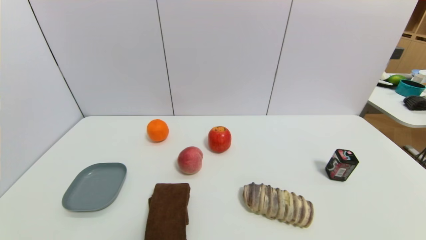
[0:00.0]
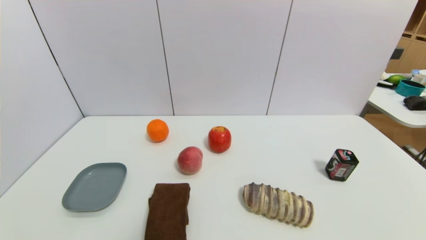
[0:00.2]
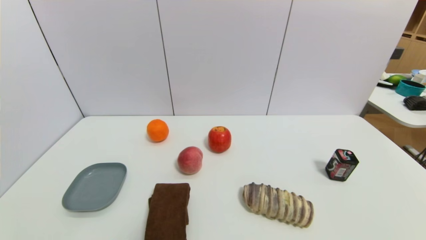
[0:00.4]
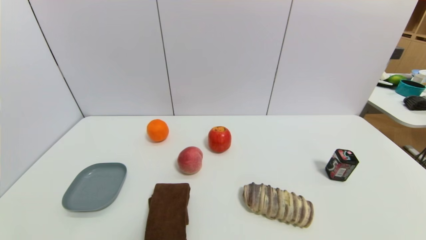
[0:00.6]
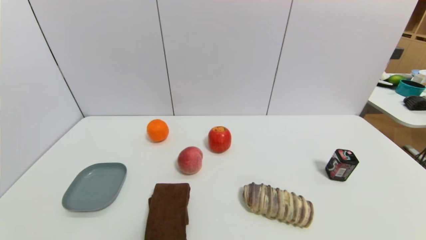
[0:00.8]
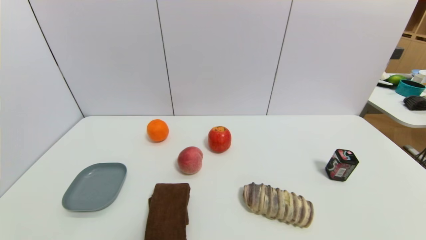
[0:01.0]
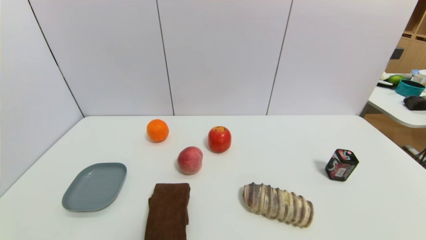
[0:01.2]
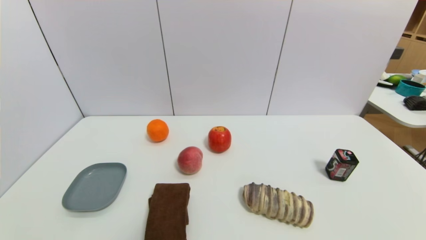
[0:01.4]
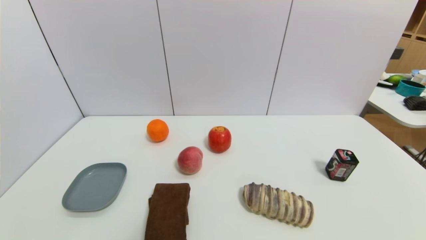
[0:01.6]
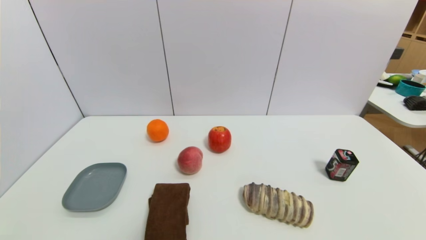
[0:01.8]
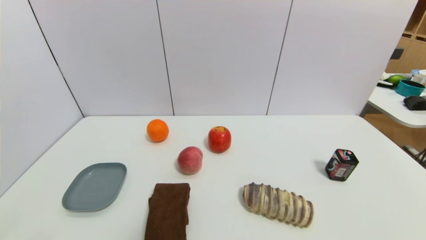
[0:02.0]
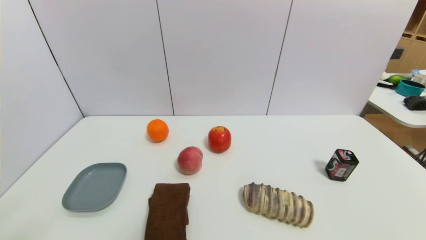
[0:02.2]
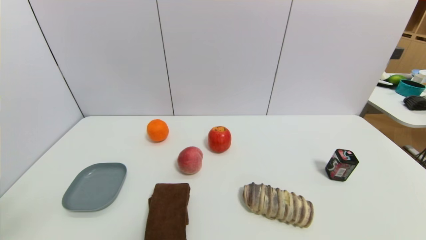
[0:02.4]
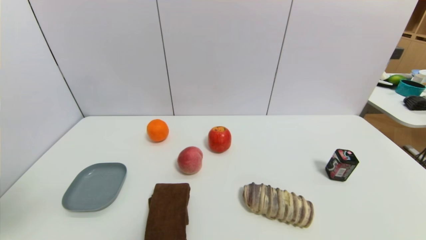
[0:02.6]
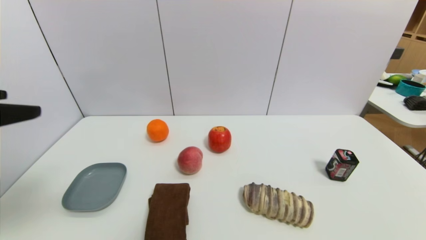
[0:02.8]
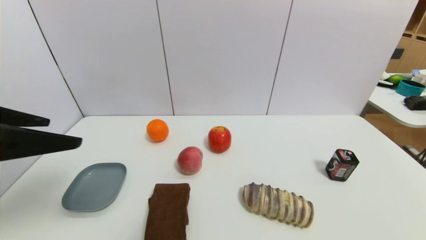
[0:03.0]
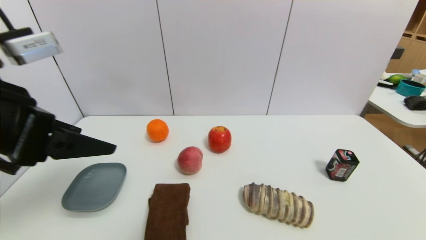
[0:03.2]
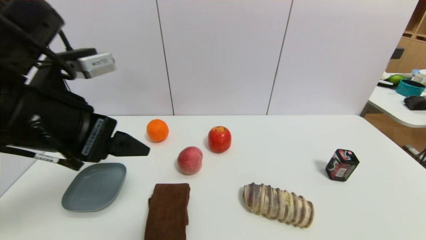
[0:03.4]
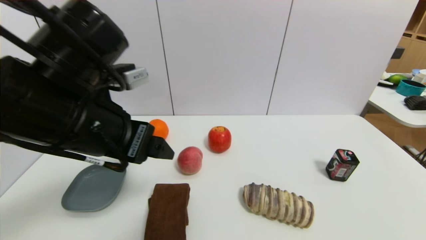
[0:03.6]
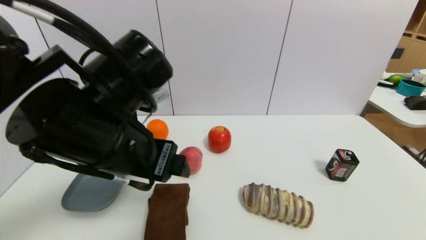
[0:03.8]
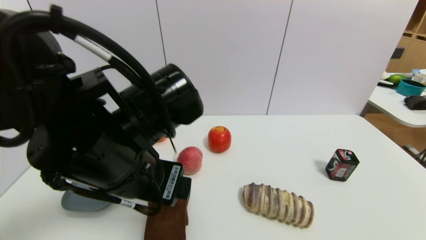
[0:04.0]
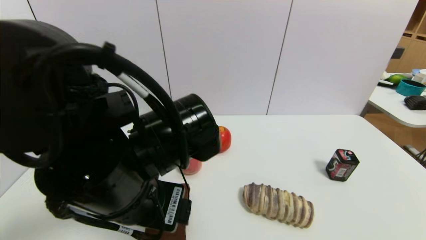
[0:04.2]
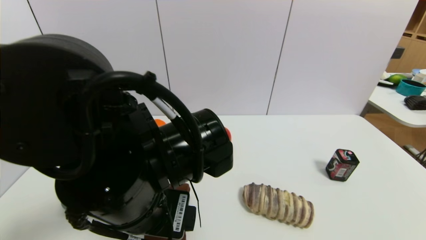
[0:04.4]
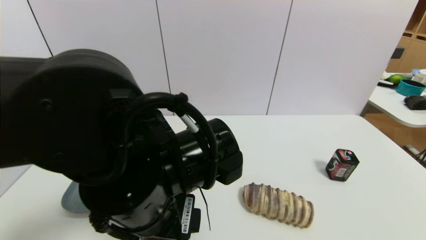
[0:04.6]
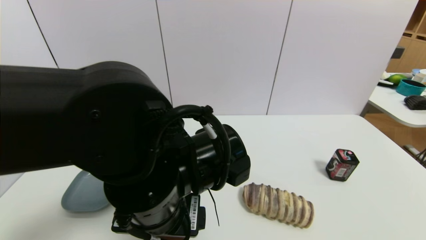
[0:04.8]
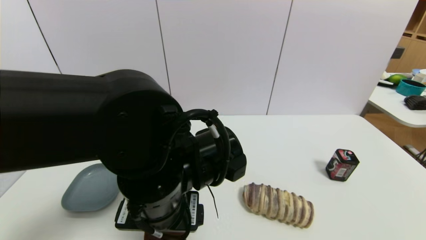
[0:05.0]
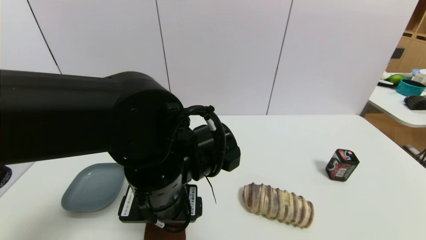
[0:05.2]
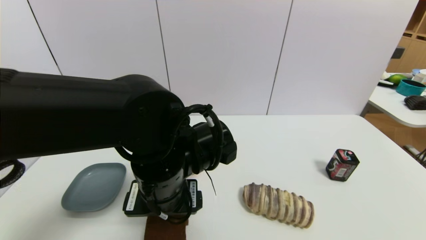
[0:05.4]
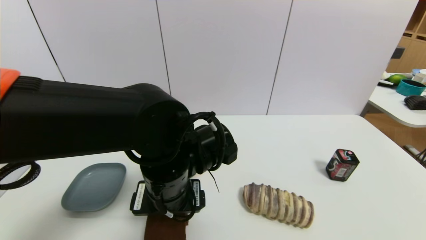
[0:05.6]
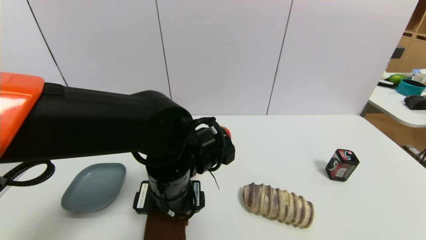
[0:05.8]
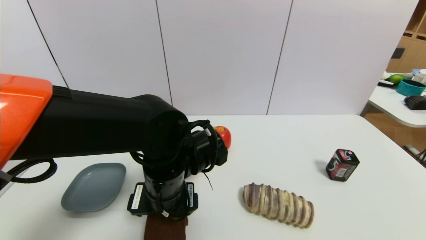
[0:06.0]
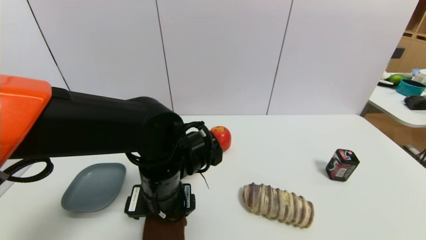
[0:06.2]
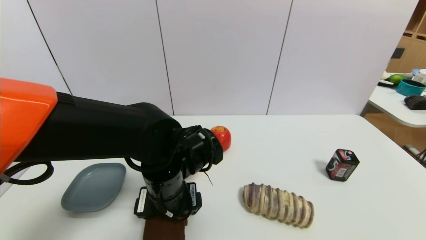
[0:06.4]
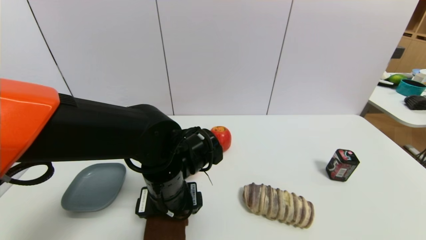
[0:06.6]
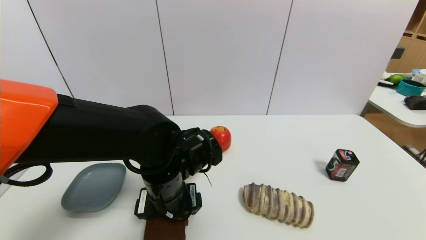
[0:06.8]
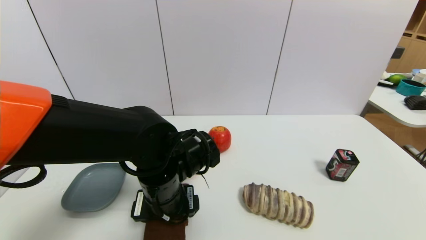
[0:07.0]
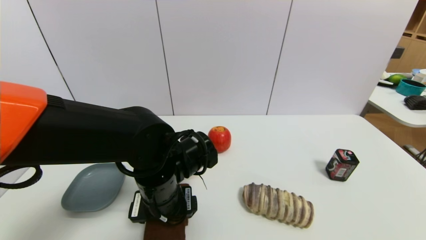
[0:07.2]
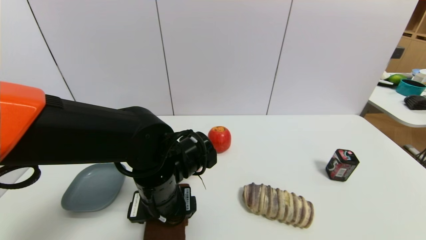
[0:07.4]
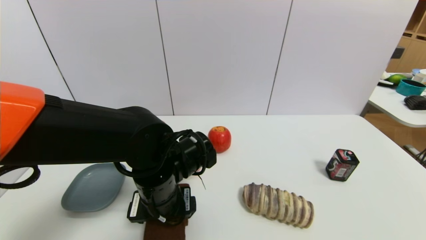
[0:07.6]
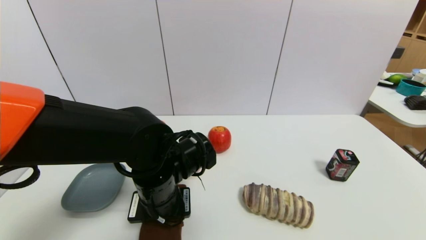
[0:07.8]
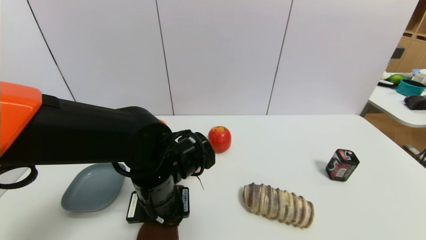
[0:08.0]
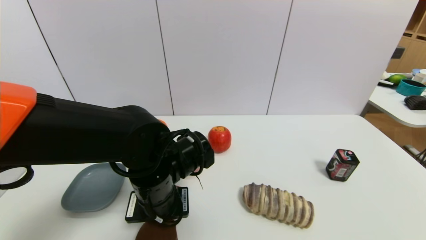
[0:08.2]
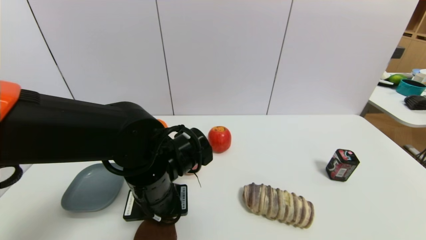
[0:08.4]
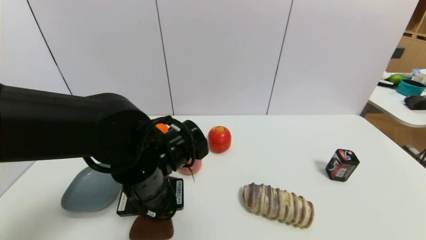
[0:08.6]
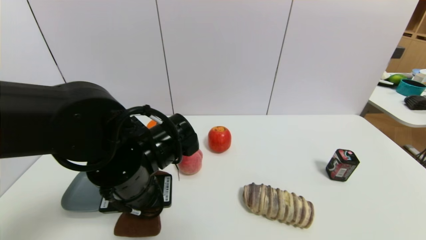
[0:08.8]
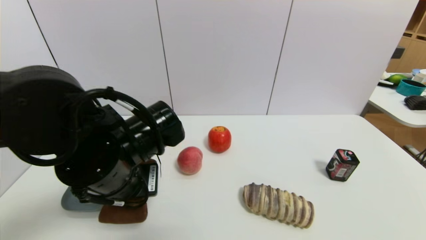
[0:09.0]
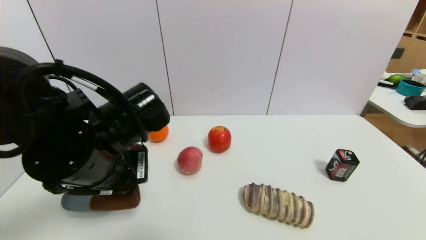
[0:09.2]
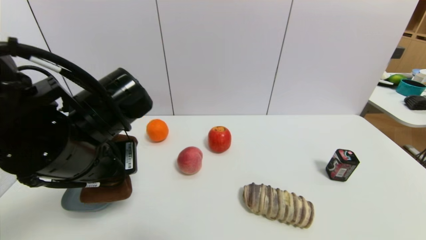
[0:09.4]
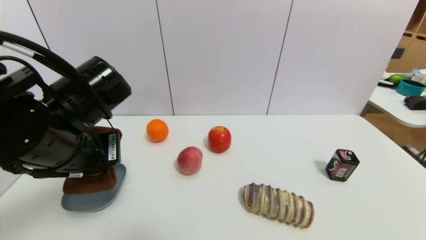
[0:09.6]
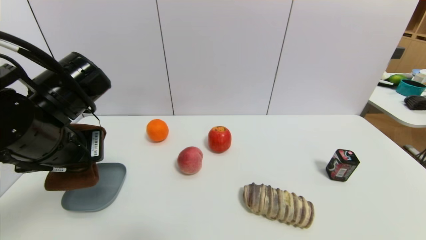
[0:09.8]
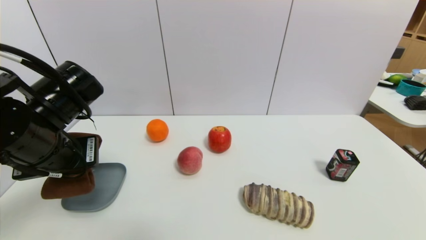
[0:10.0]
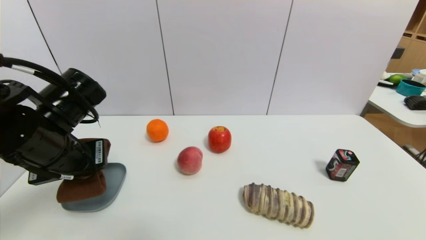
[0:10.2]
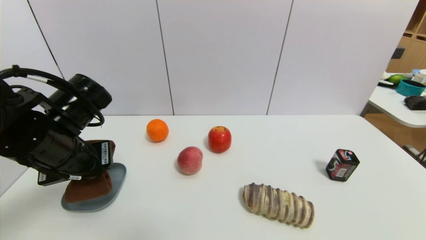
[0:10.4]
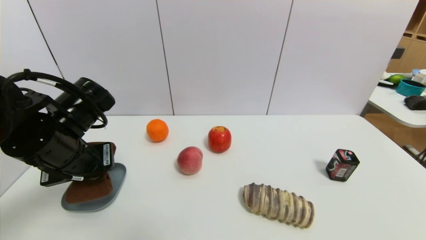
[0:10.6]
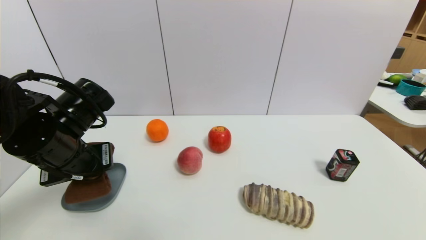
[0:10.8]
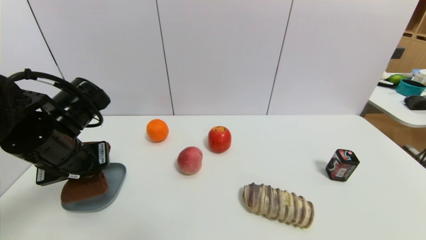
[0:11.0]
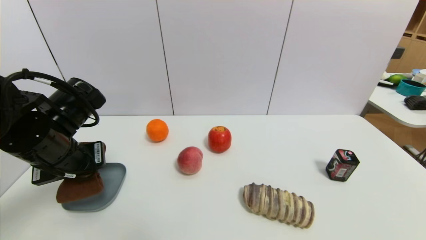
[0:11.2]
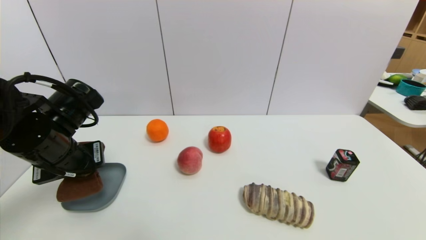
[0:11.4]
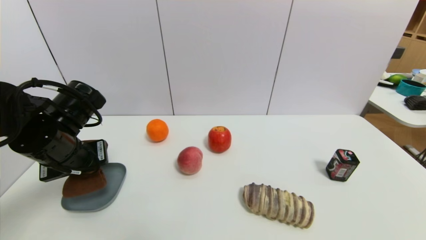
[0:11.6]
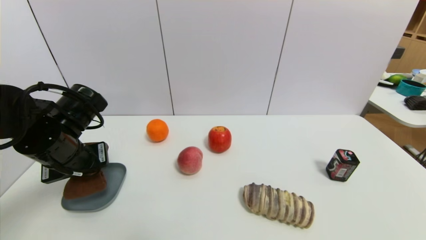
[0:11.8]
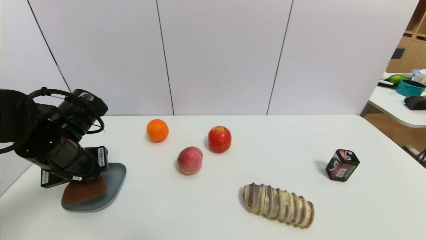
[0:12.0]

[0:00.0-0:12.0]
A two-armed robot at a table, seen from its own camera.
Task of the whole recording: use a gripper to pick the target object and place on the dish.
Step, 0:00.0 to 0:08.2: Grasp the brown towel with the left gripper.
0:00.0 to 0:01.6: The two grippers keep their place.
0:01.6 to 0:03.0: The left gripper travels upward and forward by some 30 cm.
0:03.0 to 0:04.4: The left gripper travels to the right and downward by roughly 20 cm.
0:04.4 to 0:06.0: The left gripper is displaced downward and forward by some 10 cm.
0:06.0 to 0:07.6: There are only small adjustments of the grippers.
0:07.6 to 0:09.0: The left gripper goes roughly 5 cm upward, and closes up.
0:09.0 to 0:10.4: The left gripper goes roughly 10 cm to the left.
0:10.4 to 0:12.0: The left gripper moves about 5 cm.

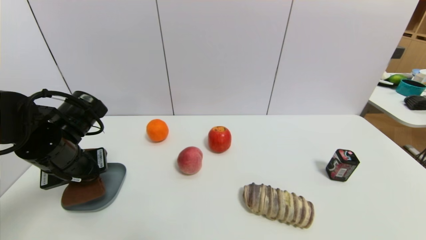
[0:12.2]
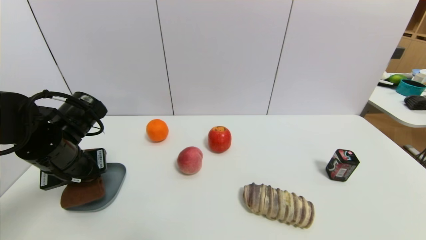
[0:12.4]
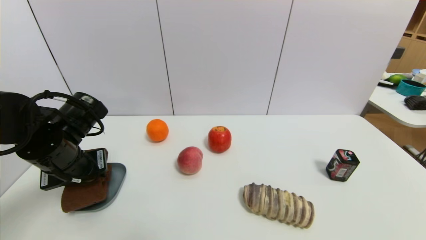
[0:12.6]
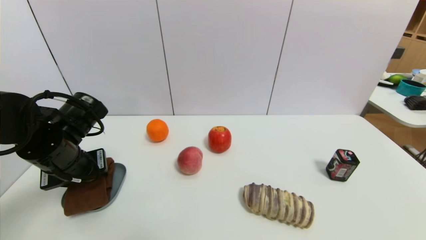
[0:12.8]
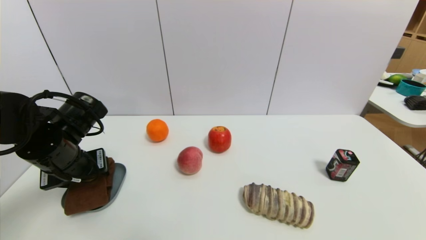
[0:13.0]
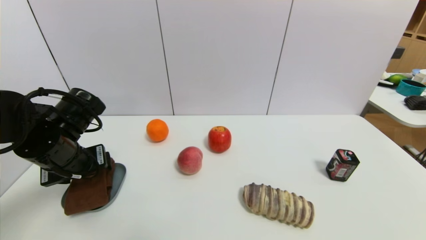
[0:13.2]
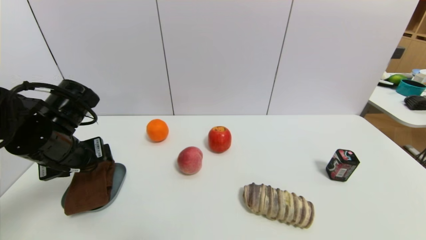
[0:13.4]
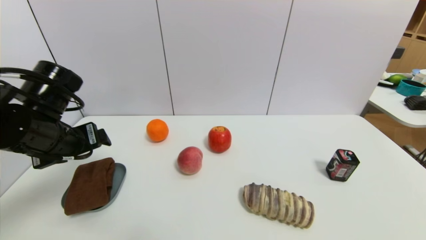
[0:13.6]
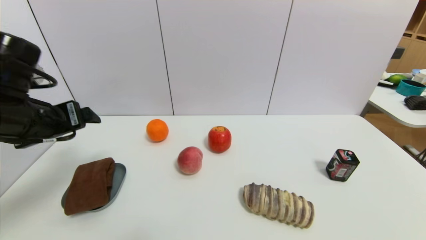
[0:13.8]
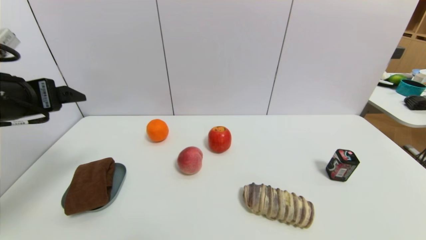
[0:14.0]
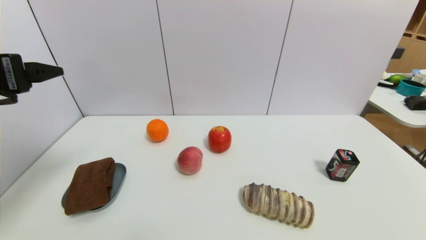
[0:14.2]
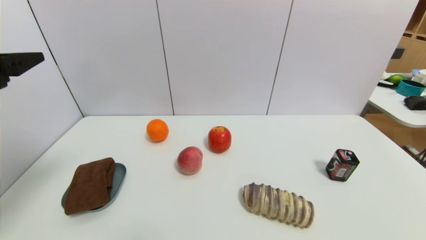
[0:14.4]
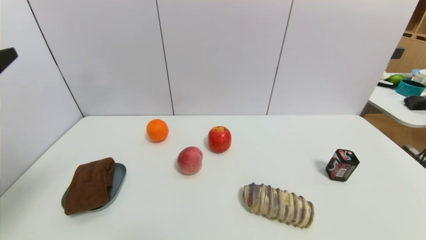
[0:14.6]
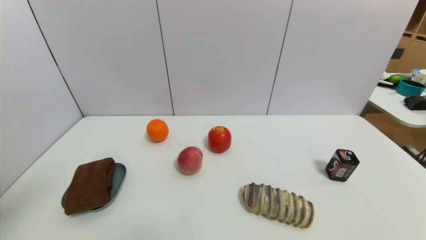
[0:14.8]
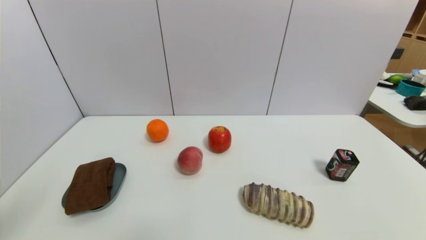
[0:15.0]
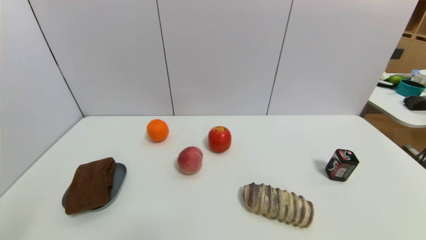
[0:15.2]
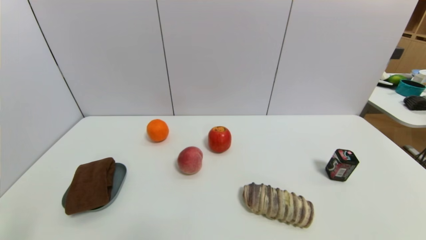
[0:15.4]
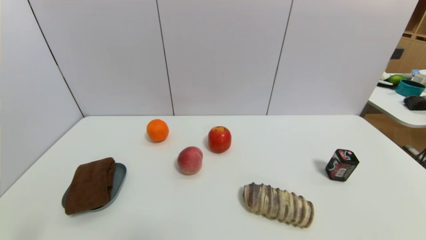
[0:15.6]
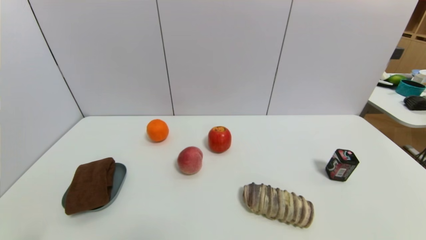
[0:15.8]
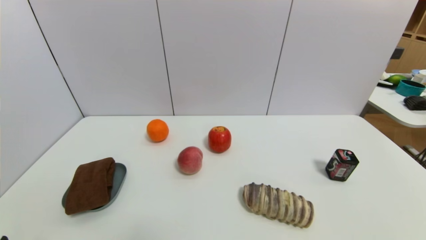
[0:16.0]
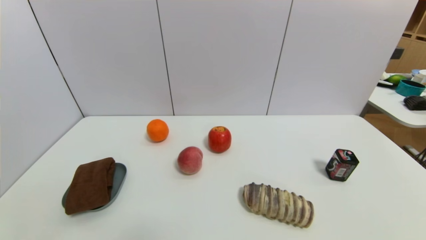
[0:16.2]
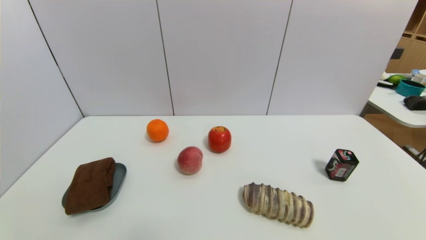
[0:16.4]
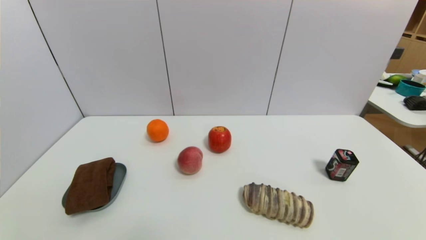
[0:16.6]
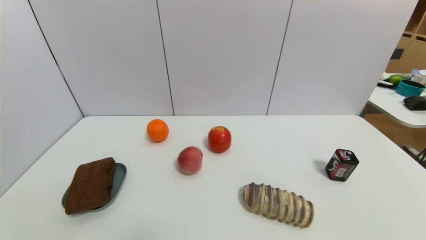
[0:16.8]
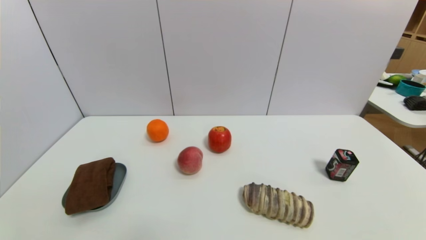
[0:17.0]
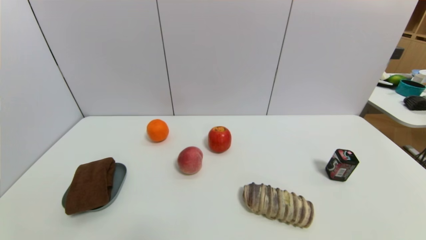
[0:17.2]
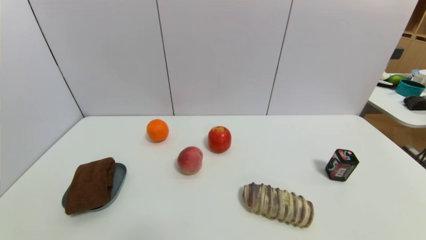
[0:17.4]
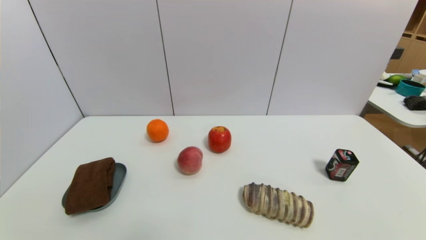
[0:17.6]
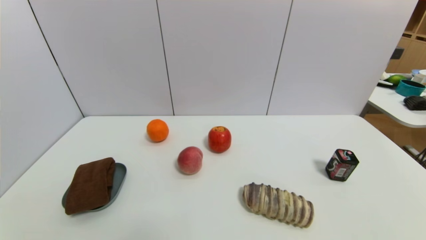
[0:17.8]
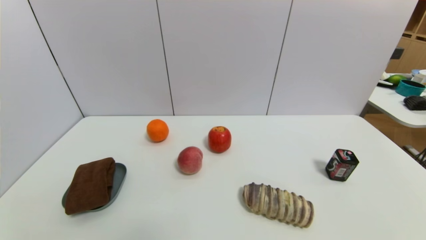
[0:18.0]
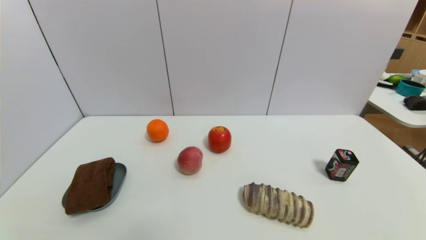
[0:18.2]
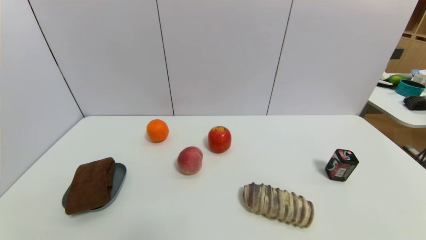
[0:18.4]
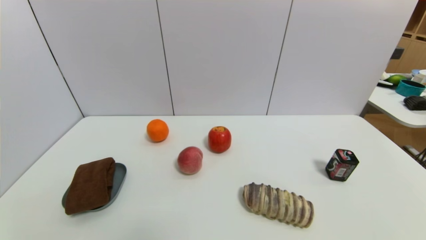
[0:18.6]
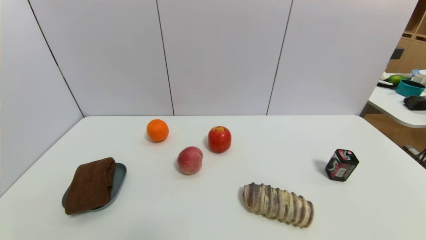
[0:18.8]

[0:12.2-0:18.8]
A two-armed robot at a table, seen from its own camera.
Task of the whole recording: use a gripper to pick the target object and place on the dish.
0:12.2 to 0:13.8: The left gripper is displaced upward by approximately 10 cm, and opens up.
0:13.8 to 0:15.4: The left gripper travels backward by about 25 cm.
0:17.2 to 0:18.8: The two grippers keep their place.
